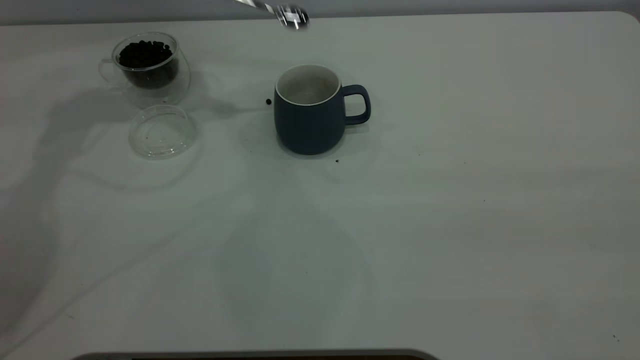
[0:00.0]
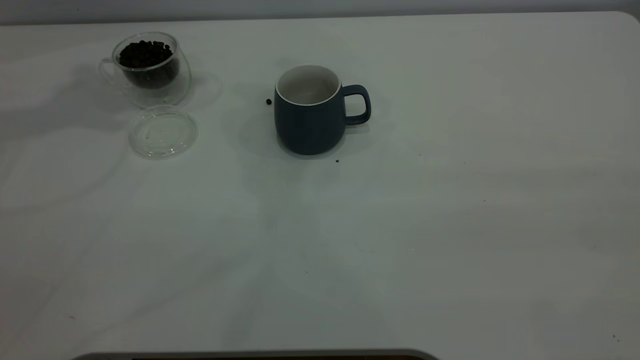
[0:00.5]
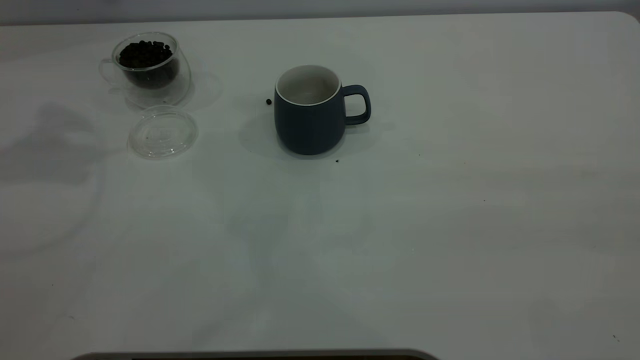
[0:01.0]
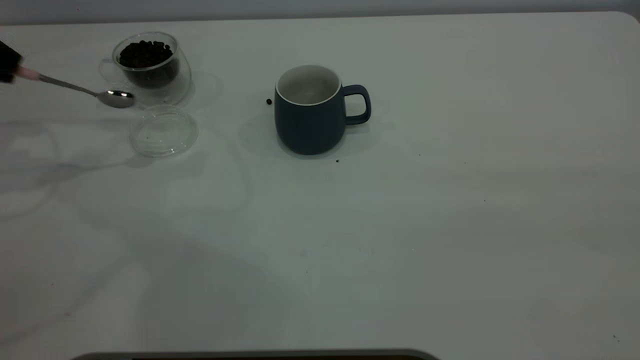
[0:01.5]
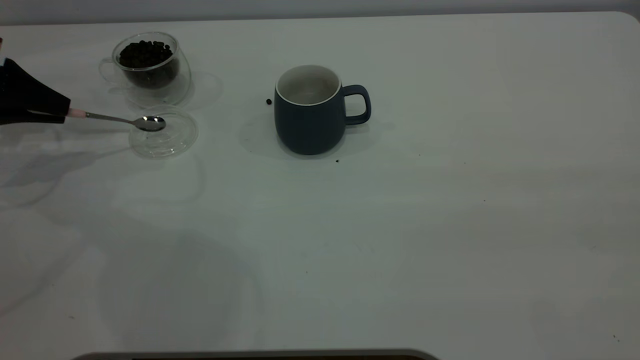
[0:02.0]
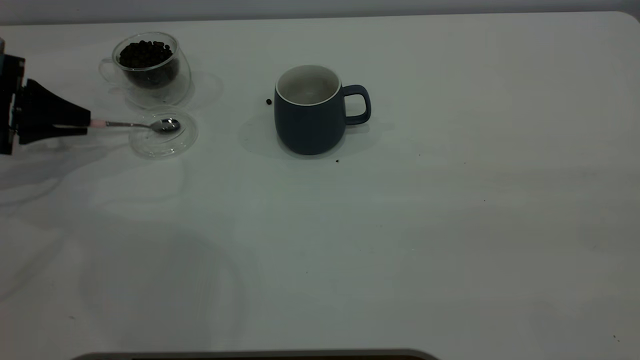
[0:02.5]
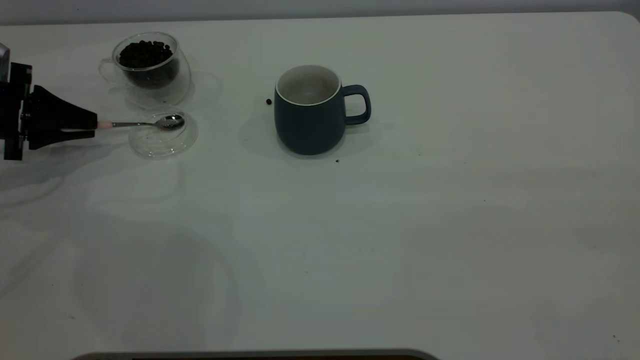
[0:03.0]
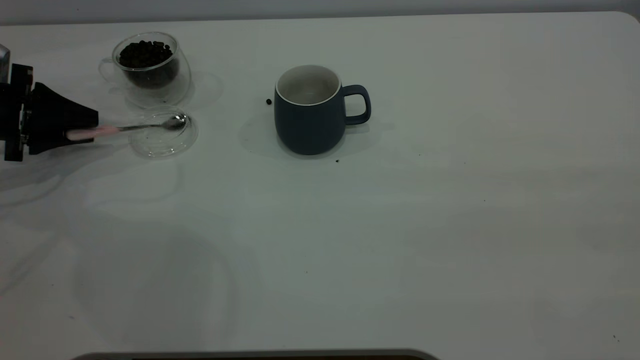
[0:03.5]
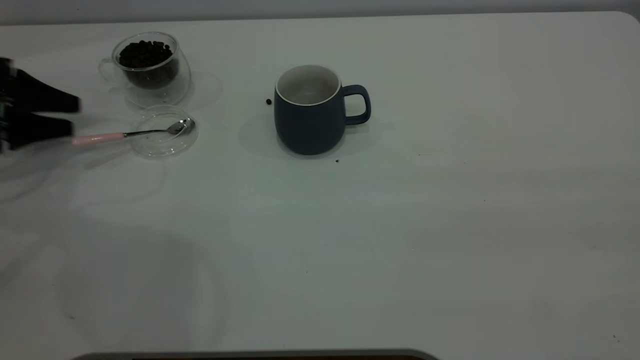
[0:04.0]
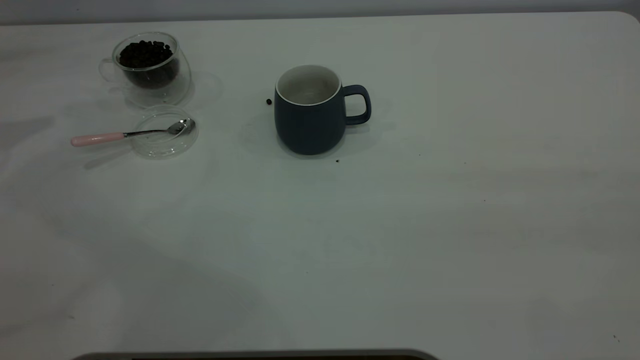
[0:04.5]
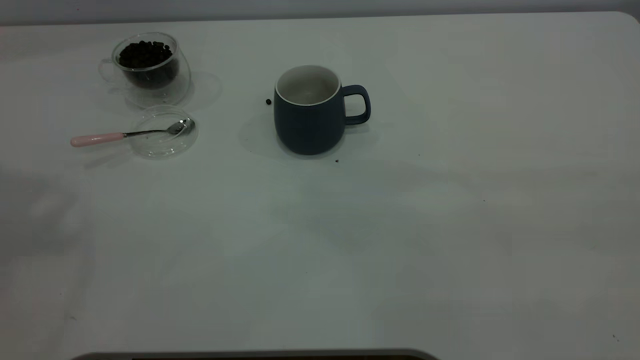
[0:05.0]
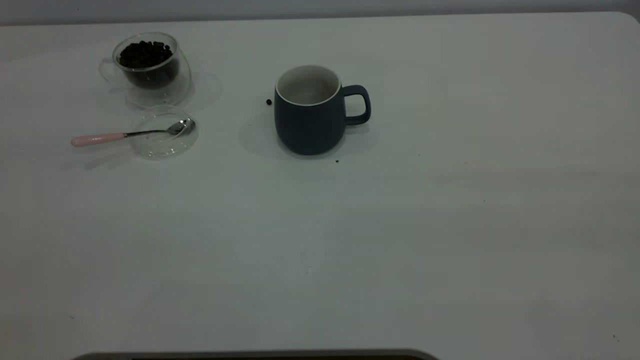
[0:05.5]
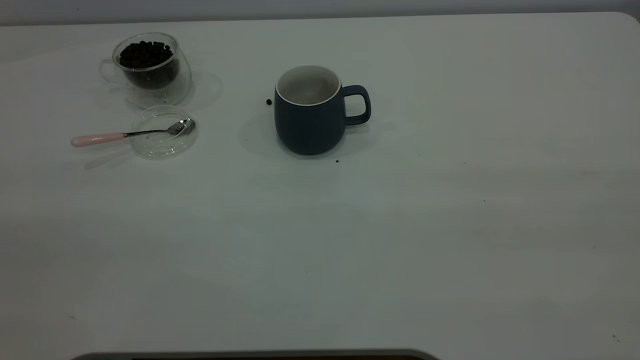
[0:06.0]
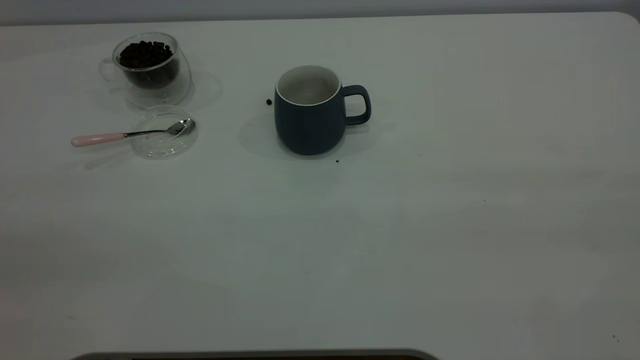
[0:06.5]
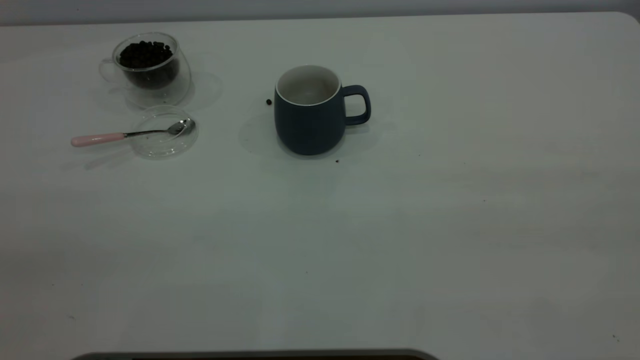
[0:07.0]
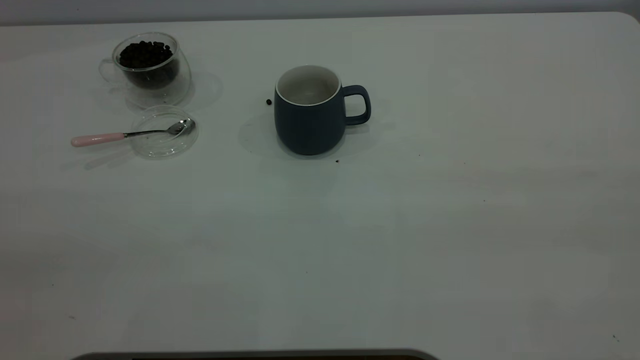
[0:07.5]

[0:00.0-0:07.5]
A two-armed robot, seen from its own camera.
Task of the whole recording: the right gripper place the grey cup in the center of the table, the left gripper take the pink spoon from the cup lid and scoop out the coffee beans from the coffee cup and put them into the grey cup, the left gripper put the spoon back into the cup lid.
Step, 0:00.0 to 0:04.0: Place the spoon back in its original place.
0:00.0 to 0:02.0: The left gripper moves to the left, downward and backward, approximately 25 cm.
0:02.0 to 0:04.0: The left gripper opens up.
0:04.0 to 0:05.5: The left gripper goes approximately 50 cm upward and backward.
